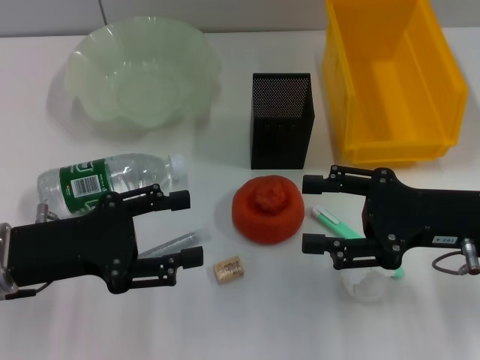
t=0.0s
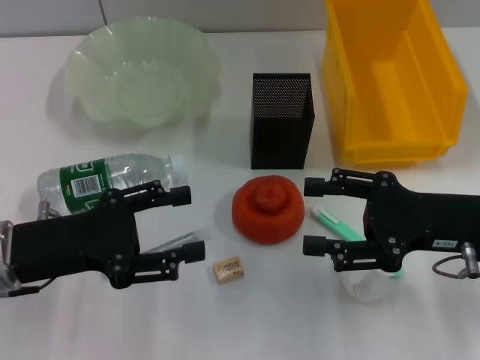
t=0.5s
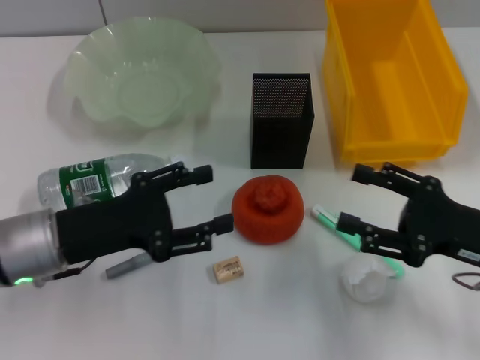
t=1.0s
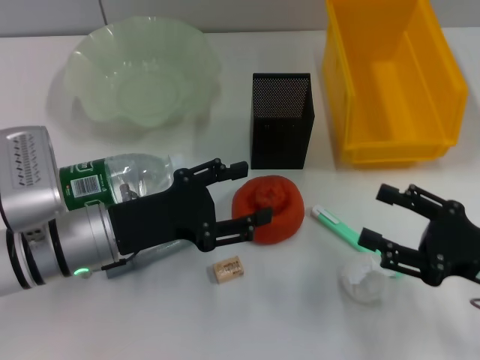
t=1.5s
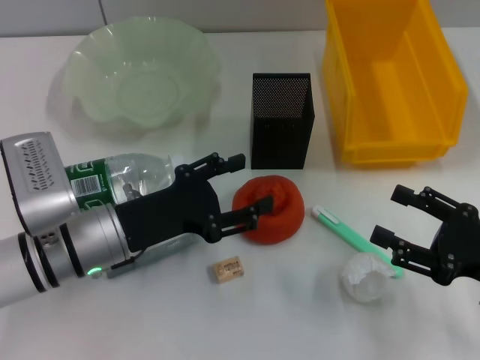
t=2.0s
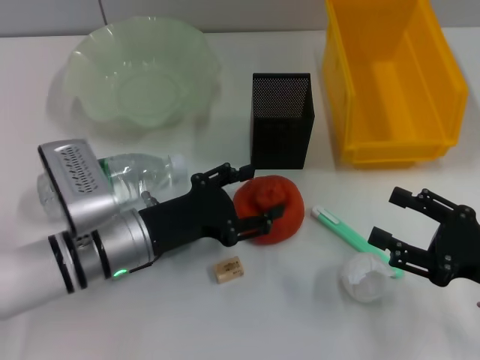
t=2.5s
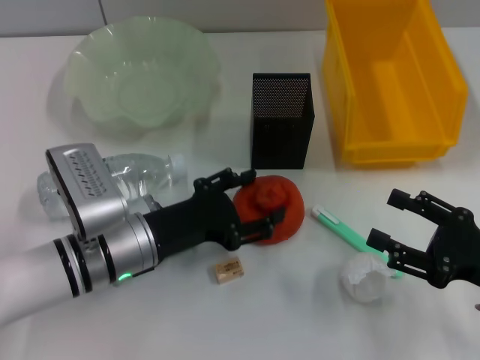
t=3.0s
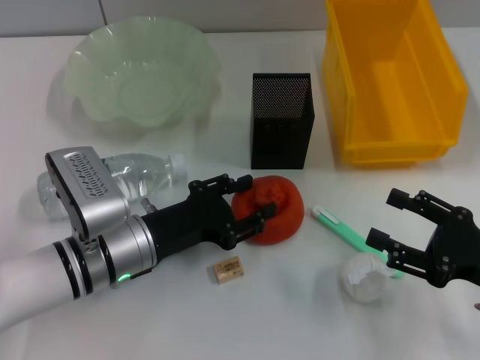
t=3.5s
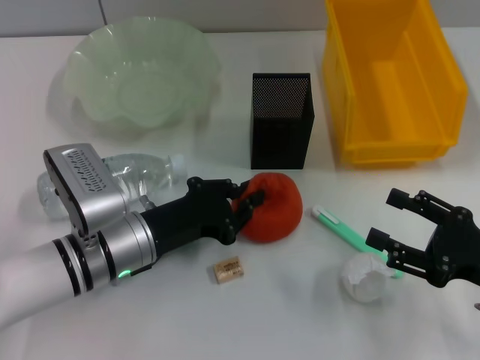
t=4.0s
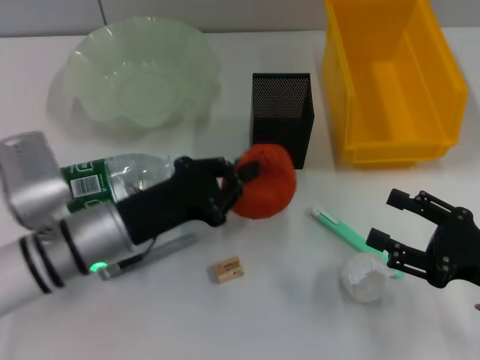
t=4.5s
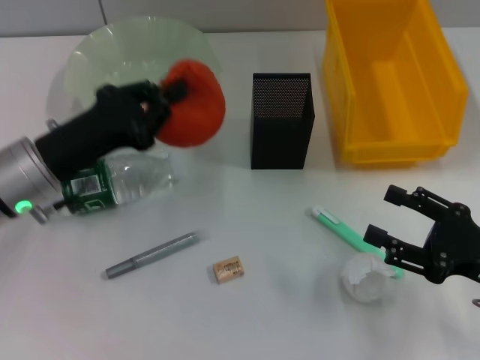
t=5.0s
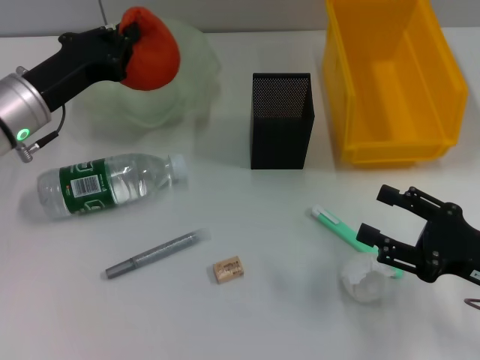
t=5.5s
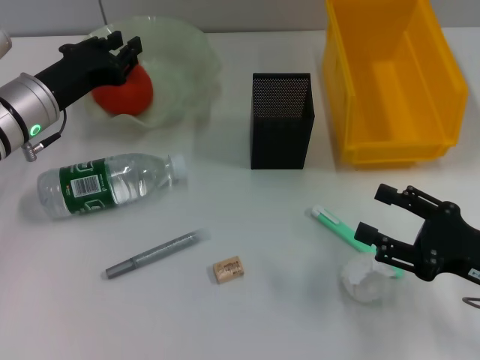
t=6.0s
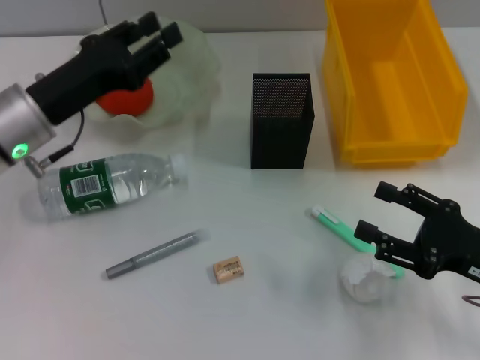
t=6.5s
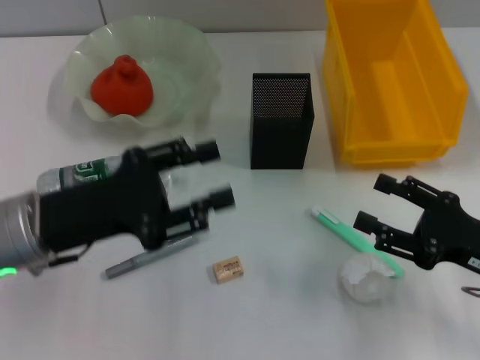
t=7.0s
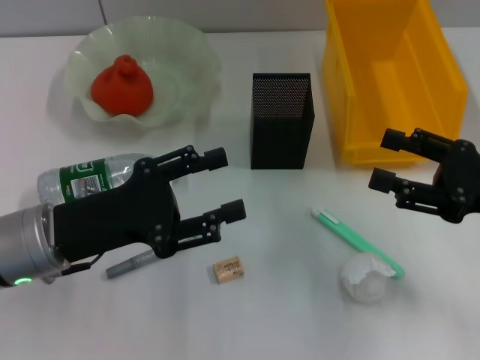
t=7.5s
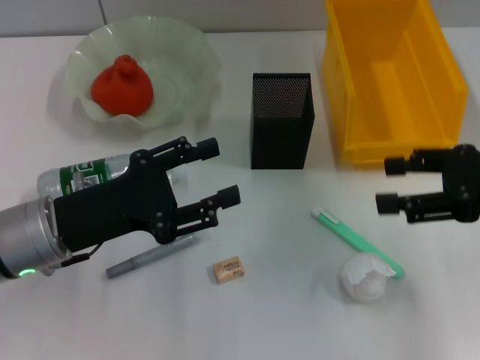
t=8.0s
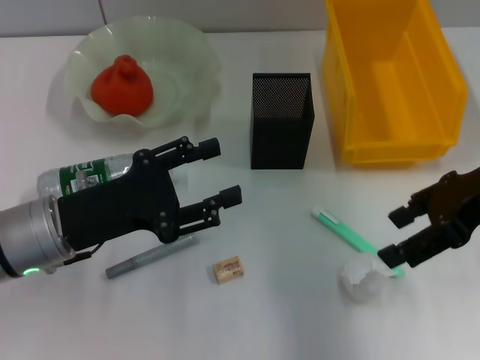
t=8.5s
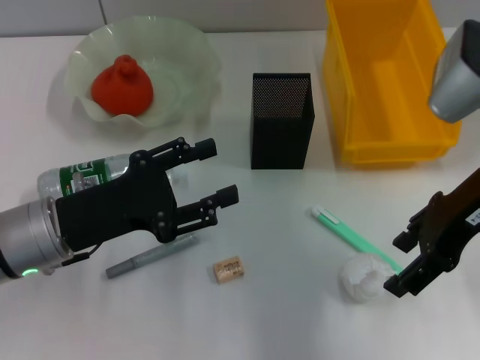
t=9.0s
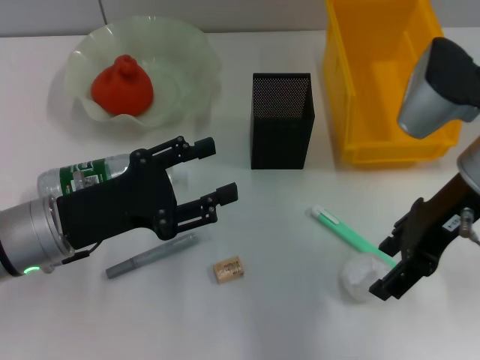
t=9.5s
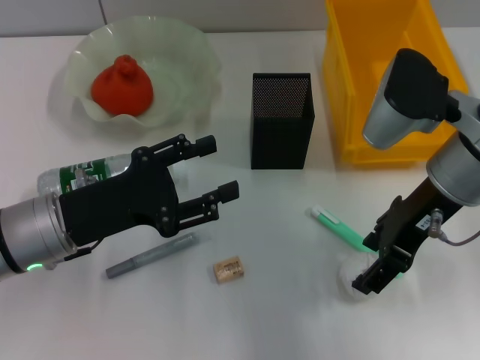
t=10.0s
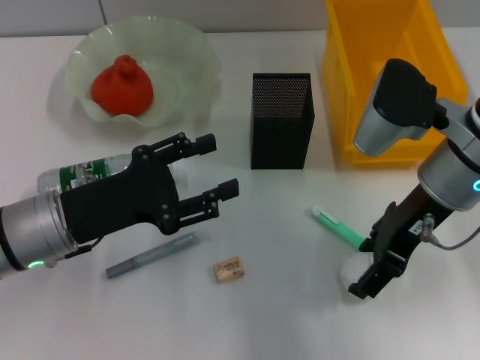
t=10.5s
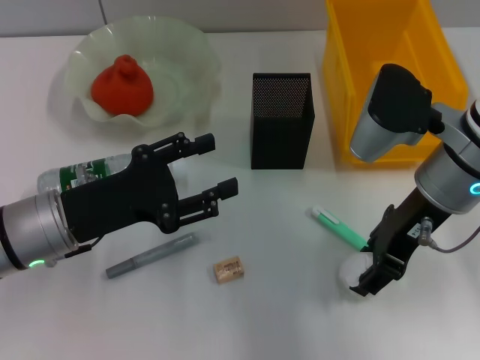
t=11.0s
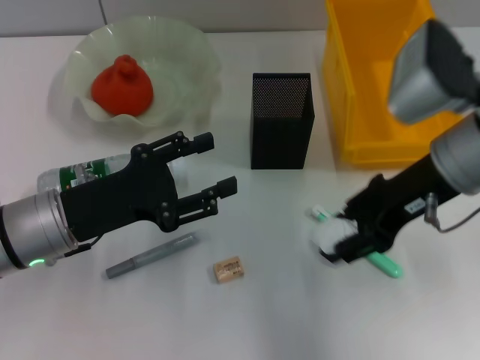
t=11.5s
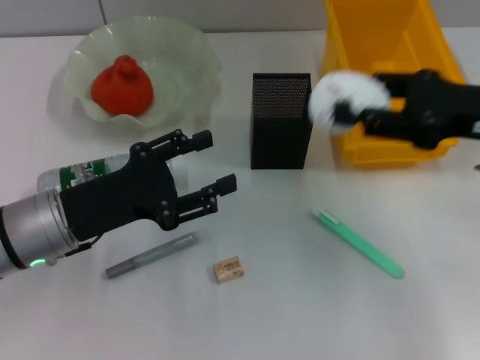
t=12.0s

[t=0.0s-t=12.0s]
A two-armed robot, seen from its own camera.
Step, t=0.0s to t=4.0s: Grab the orange with the left hand.
Step, t=4.5s to t=6.0s: Place the orange into the fruit bowl with the left hand.
Step, t=6.5s to t=10.5s: Grab the paper ball with the right hand.
t=0.0s to t=2.0s: The right gripper goes roughly 10 cm backward, to the right and downward. Meanwhile the left gripper heads to the right and downward, covering some 10 cm.
t=2.0s to t=4.0s: The left gripper closes.
t=4.0s to t=6.0s: The left gripper goes about 15 cm forward, to the left and upward.
t=6.0s to t=8.0s: The left gripper heads backward, covering about 10 cm, and opens; the right gripper travels upward and forward by approximately 15 cm.
t=8.0s to t=10.0s: The right gripper moves to the left, some 10 cm.
t=10.0s to t=12.0s: The right gripper heads to the right, covering approximately 10 cm, and closes up.

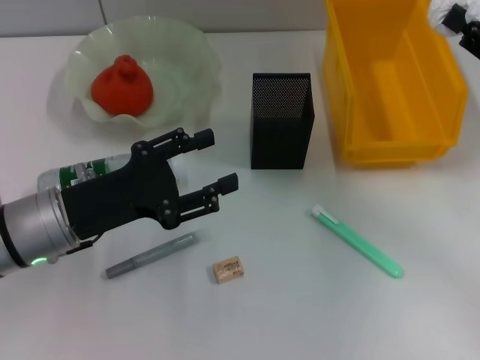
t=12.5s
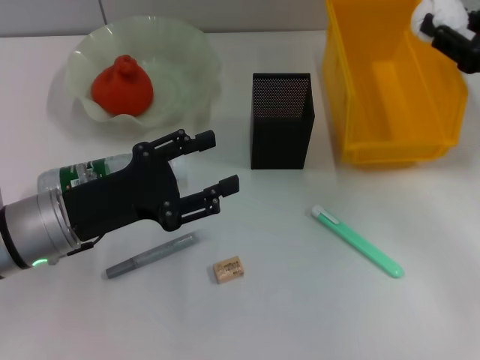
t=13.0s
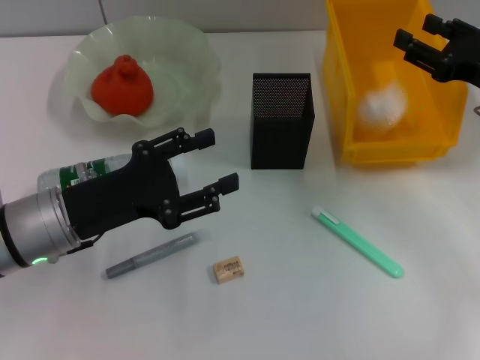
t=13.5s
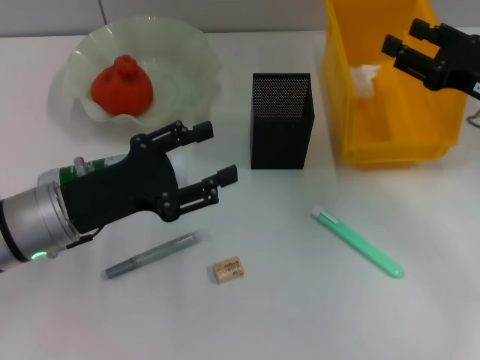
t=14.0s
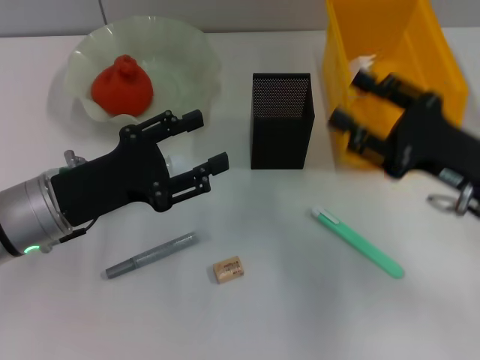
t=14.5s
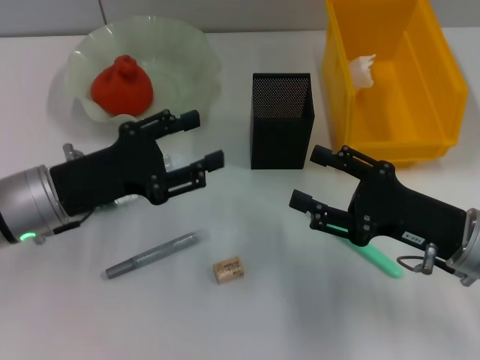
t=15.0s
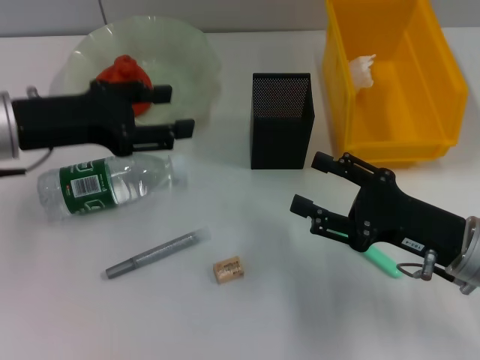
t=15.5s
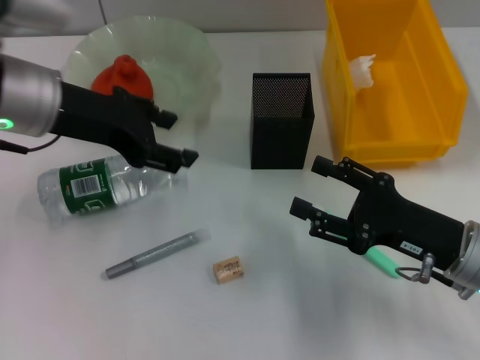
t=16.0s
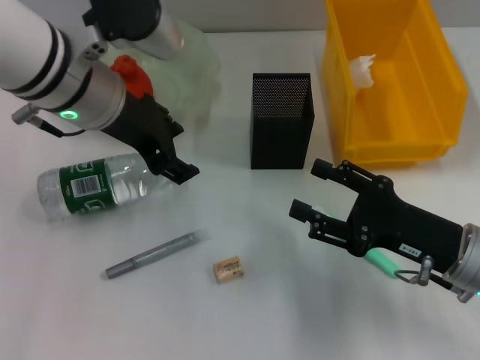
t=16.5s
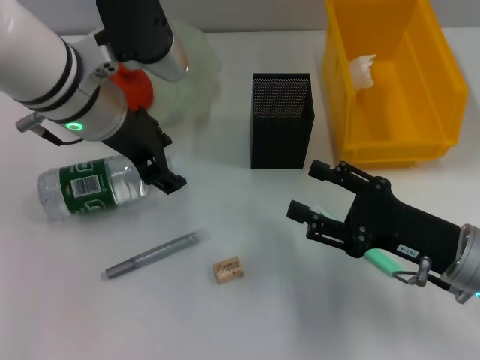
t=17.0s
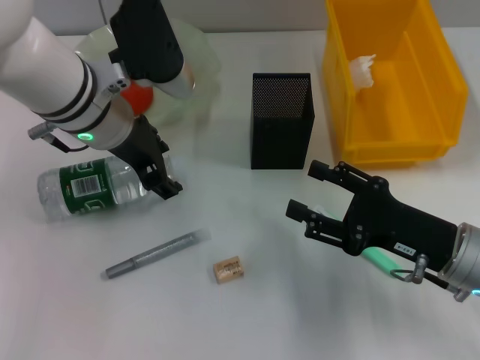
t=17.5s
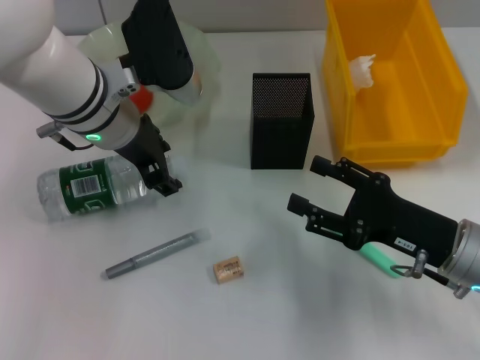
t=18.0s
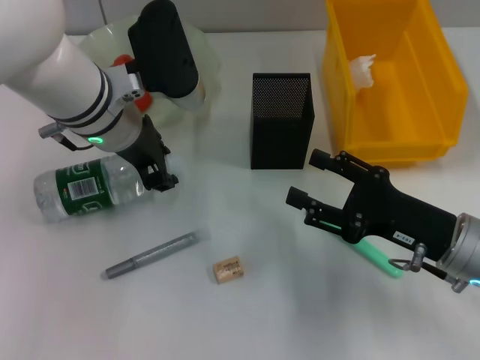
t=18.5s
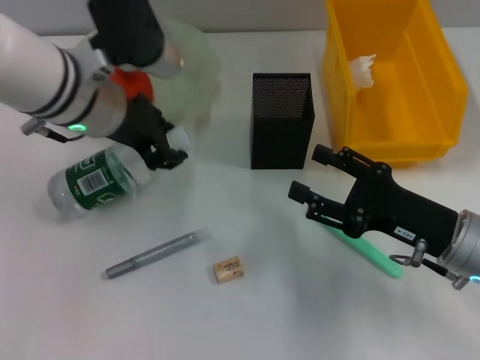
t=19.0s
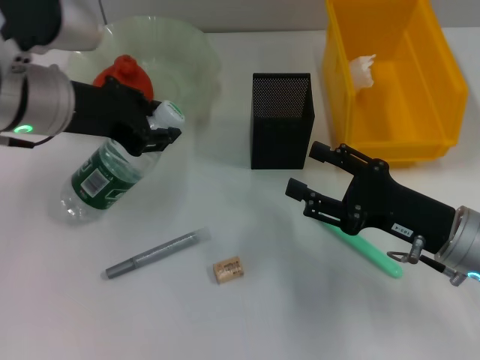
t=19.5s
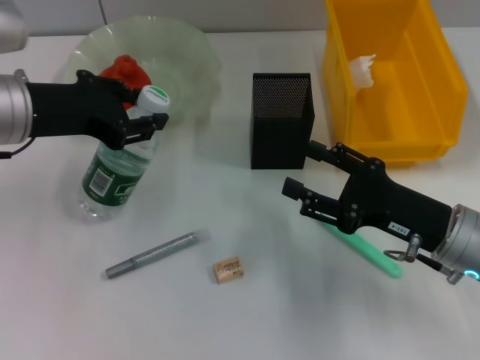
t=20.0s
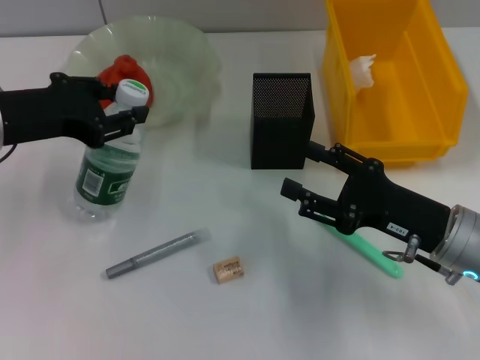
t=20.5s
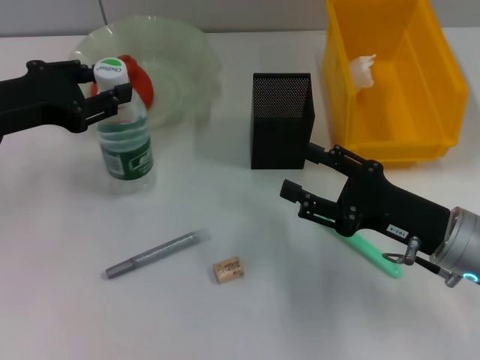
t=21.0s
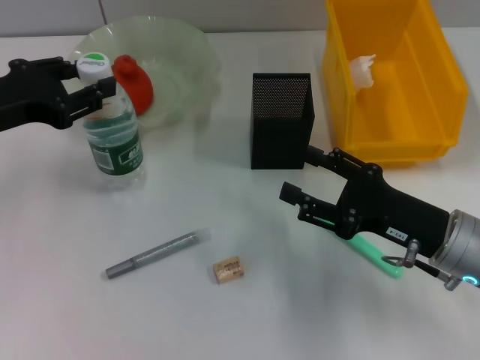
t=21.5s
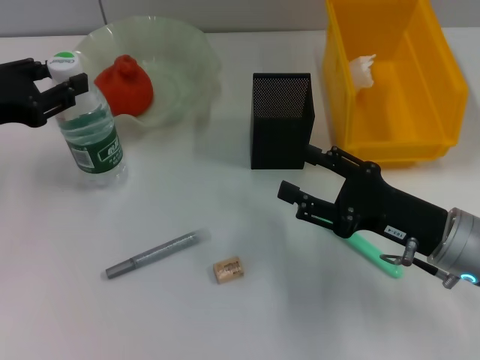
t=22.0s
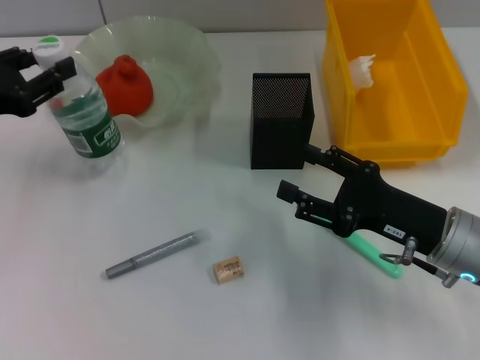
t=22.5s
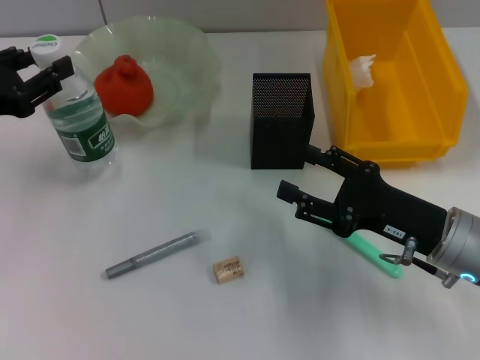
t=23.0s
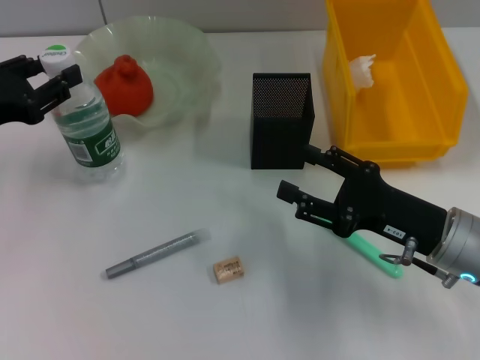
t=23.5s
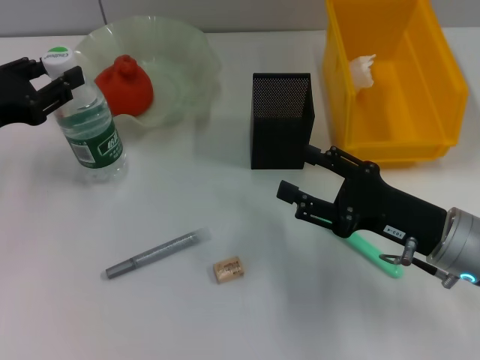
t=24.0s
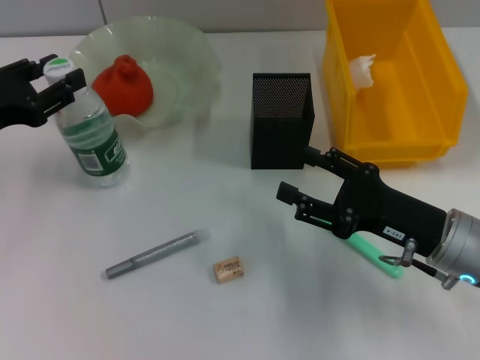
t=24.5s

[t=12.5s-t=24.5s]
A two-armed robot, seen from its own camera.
Step, t=14.0s to t=18.5s: Grab the water bottle with the left hand.
t=12.5s to t=14.5s: The right gripper shifts about 10 cm to the left.
t=14.5s to t=16.5s: The left gripper goes some 15 cm upward, forward and to the right, while the right gripper changes place by approximately 5 cm.
t=16.5s to t=18.5s: The left gripper shifts roughly 5 cm downward, and closes its fingers.
t=18.5s to t=20.5s: The left gripper shifts approximately 15 cm to the left and backward.
t=20.5s to t=22.5s: The left gripper heads to the left, covering roughly 5 cm.
t=22.5s to t=24.5s: The grippers stay close to where they were, moving slightly.

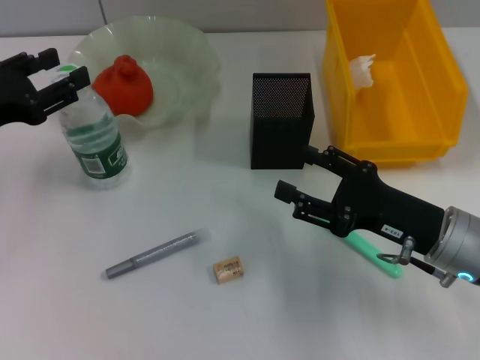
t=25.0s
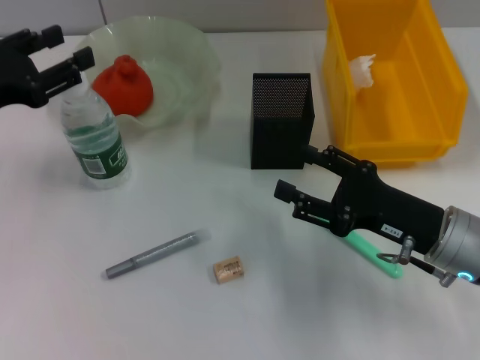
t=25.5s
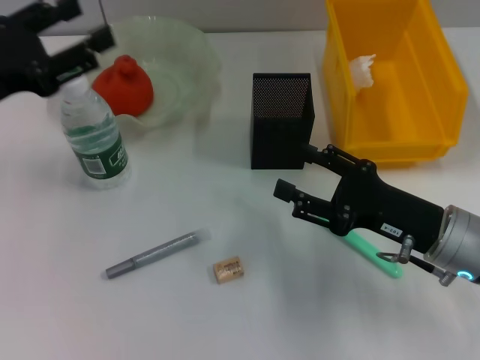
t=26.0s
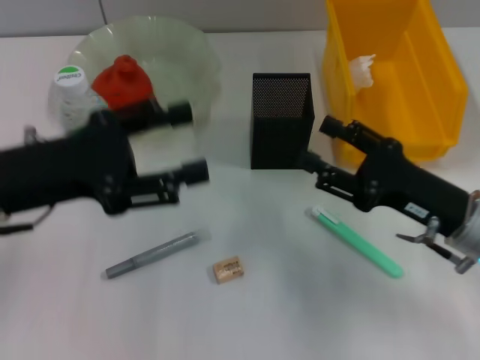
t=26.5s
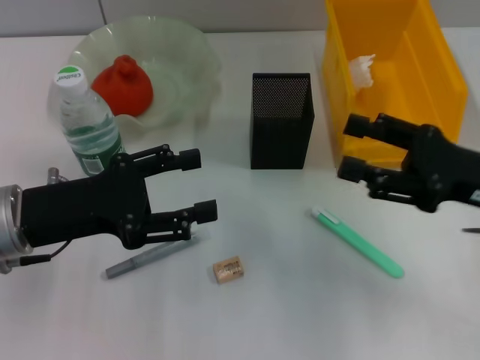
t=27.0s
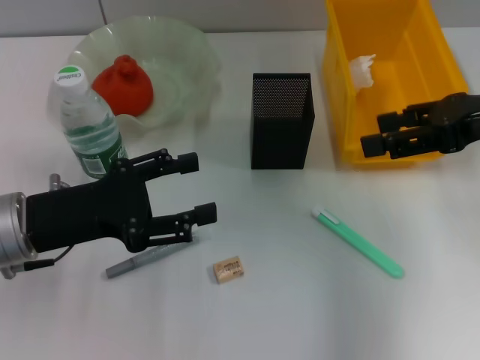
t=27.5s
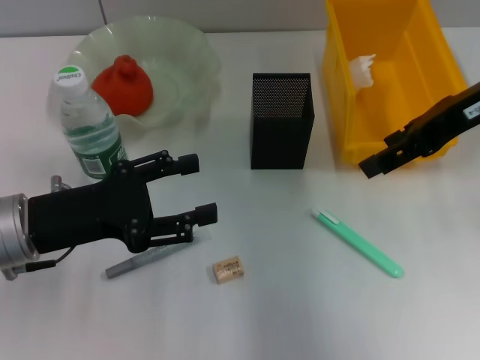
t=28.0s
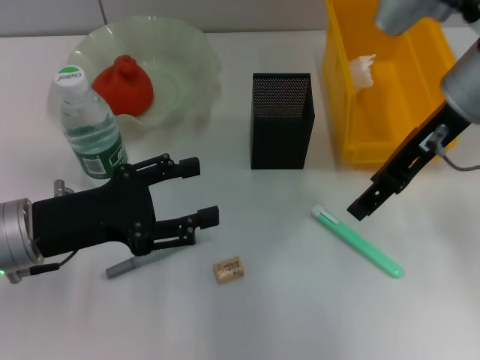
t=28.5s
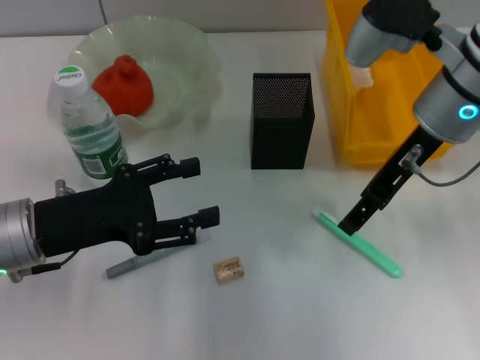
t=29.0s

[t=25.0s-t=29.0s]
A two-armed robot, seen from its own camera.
t=25.0s to t=27.0s: The left gripper goes approximately 5 cm to the right, and opens; the right gripper is displaced upward and to the right by some 10 cm.
t=27.0s to t=29.0s: The right gripper travels forward, to the left and upward by about 15 cm.
